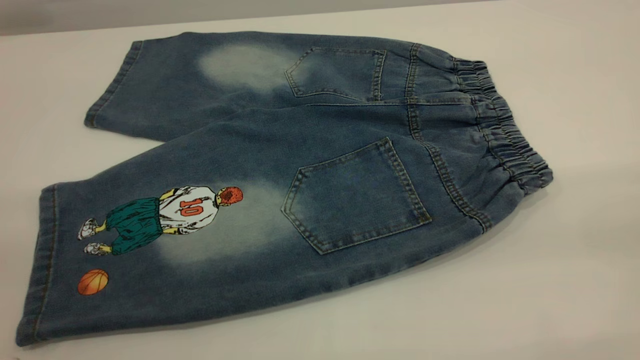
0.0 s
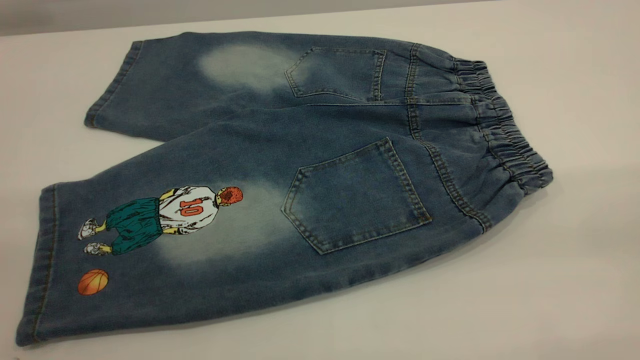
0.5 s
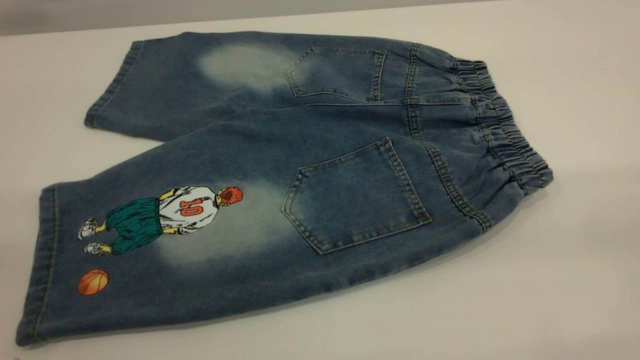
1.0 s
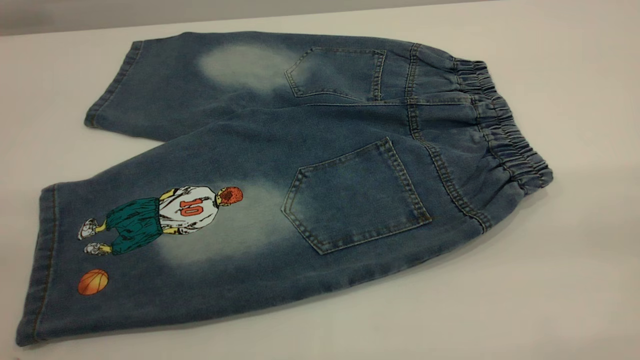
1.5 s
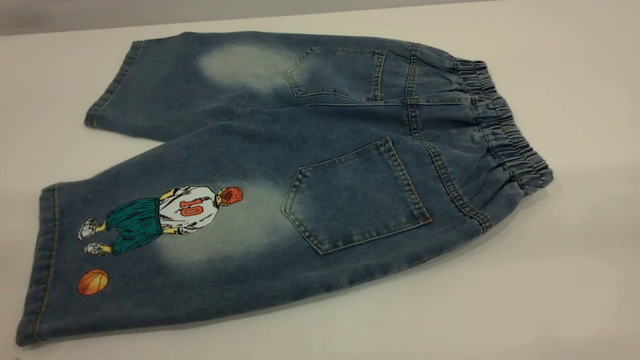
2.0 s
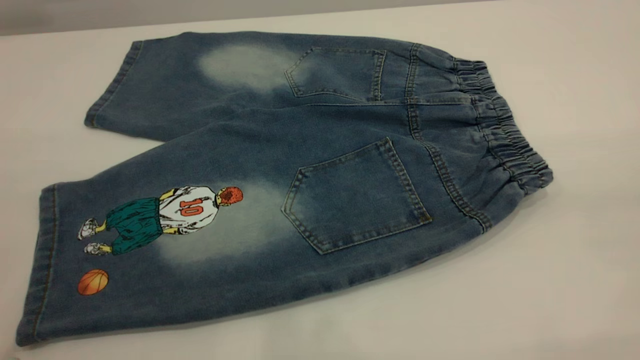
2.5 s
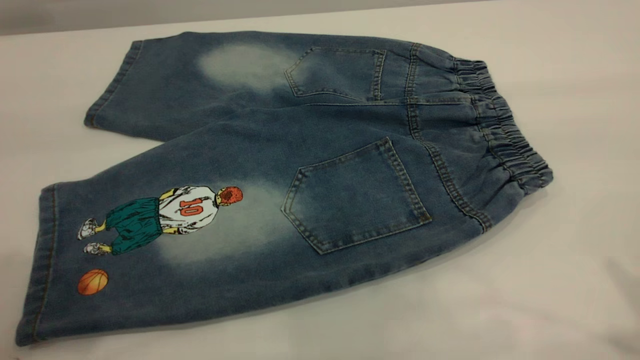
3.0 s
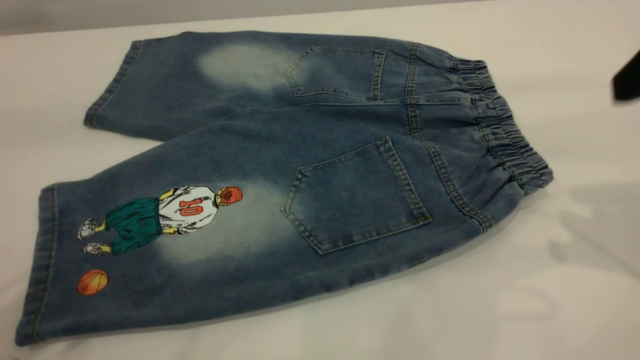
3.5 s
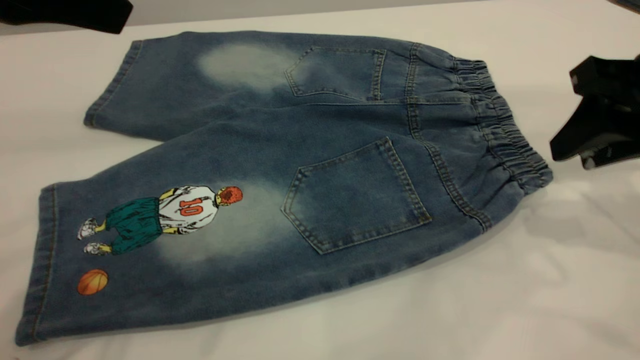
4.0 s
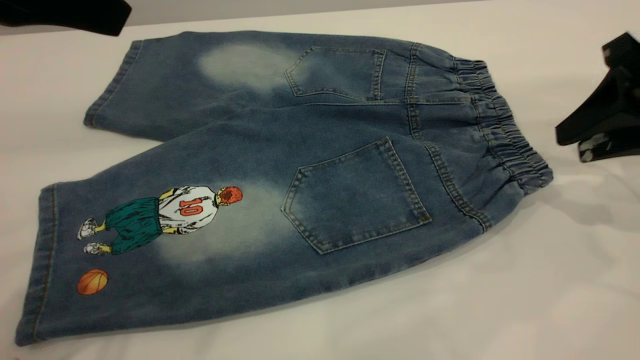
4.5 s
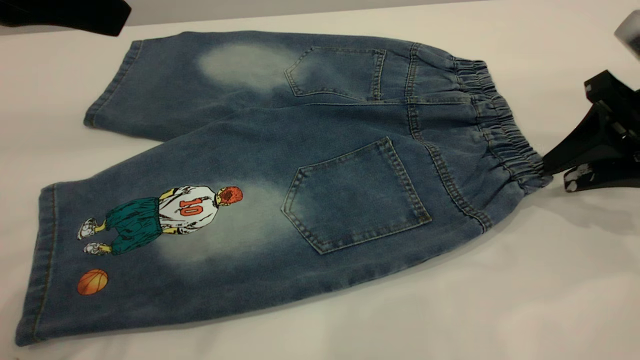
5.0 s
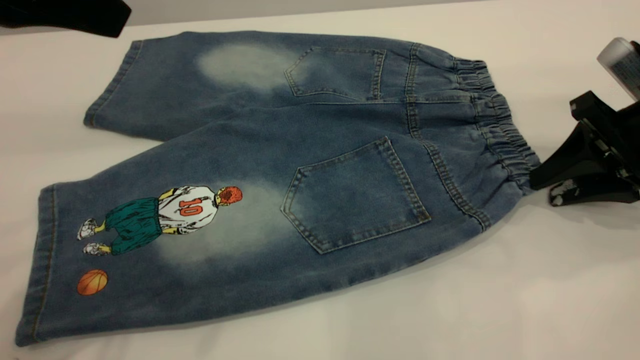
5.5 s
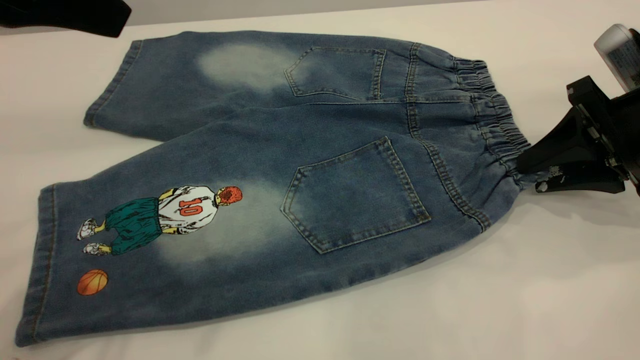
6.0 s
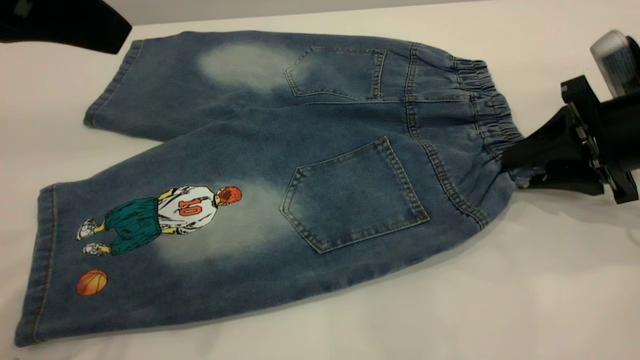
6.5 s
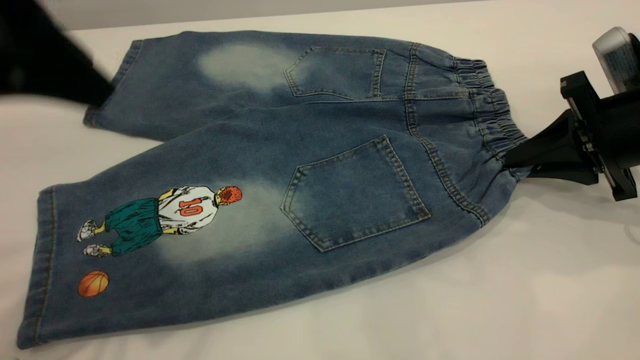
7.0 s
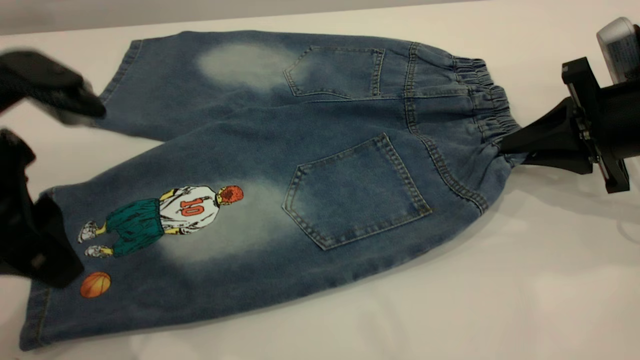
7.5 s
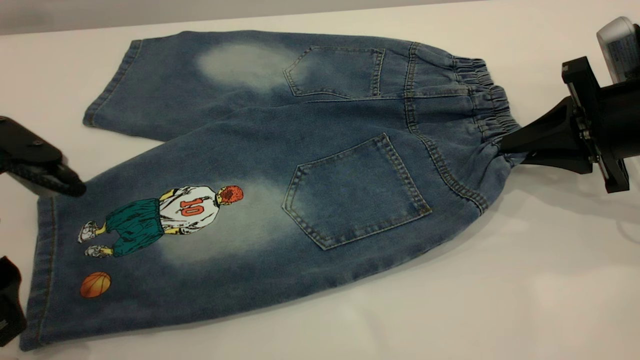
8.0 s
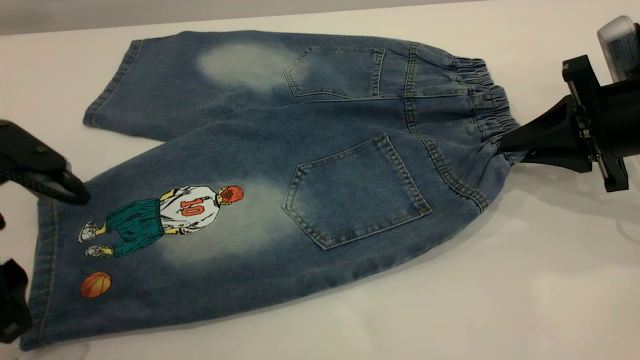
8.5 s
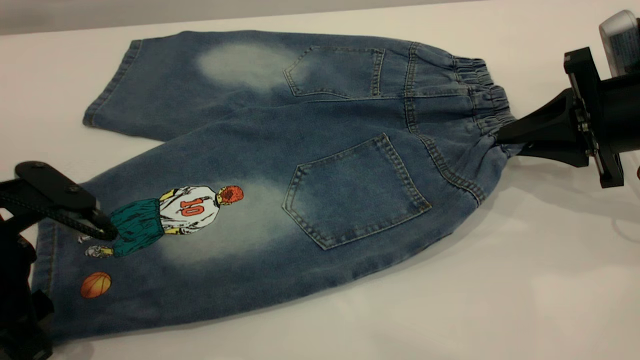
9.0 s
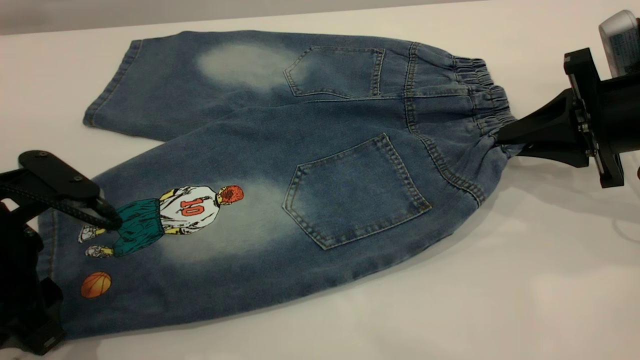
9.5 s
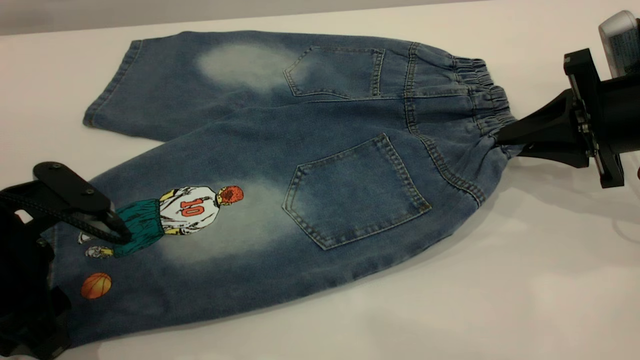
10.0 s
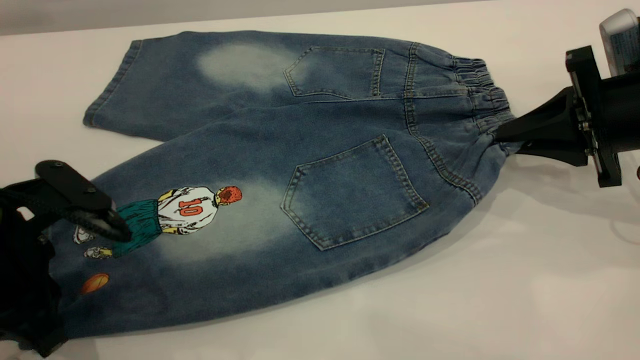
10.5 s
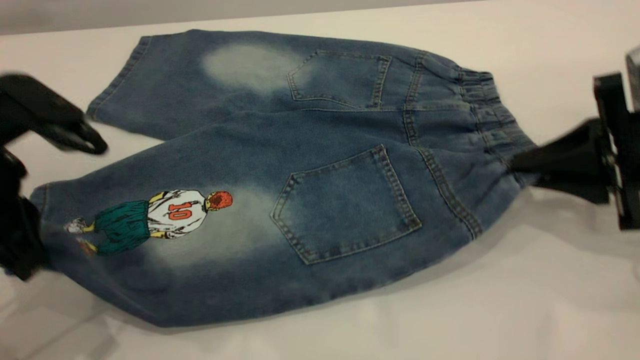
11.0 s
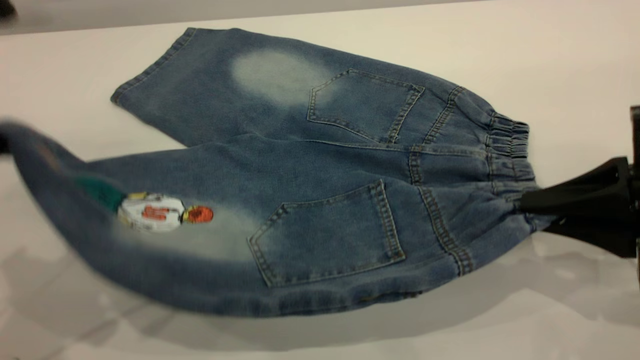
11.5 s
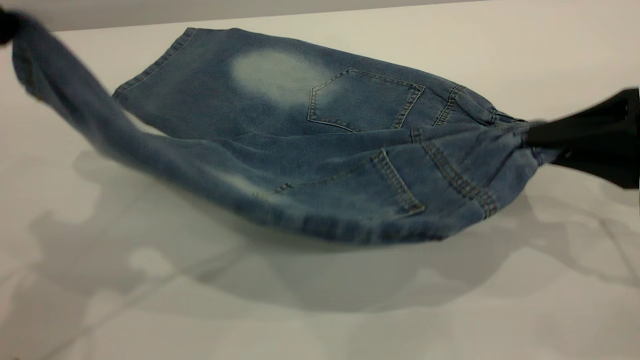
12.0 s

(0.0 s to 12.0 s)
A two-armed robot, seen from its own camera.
2.0 s - 4.0 s: The right gripper goes about 30 cm forward and downward. Meanwhile the left gripper goes about 25 cm forward and to the right.
4.0 s - 6.0 s: The right gripper moves downward, some 10 cm.
6.0 s - 8.0 s: The right gripper closes; the left gripper heads downward, covering roughly 15 cm.
8.0 s - 10.0 s: The left gripper travels downward by approximately 5 cm.
10.0 s - 12.0 s: The right gripper travels backward by about 10 cm. The left gripper is displaced upward by approximately 20 cm, and closes its fingers.

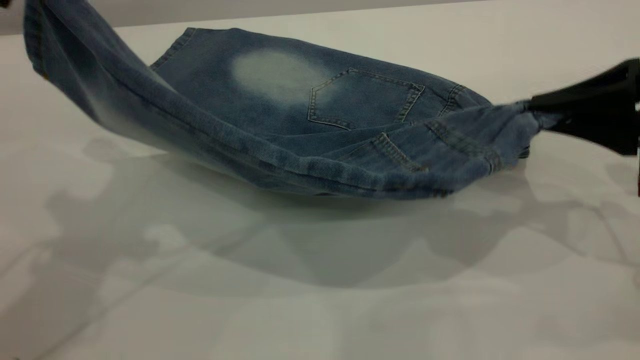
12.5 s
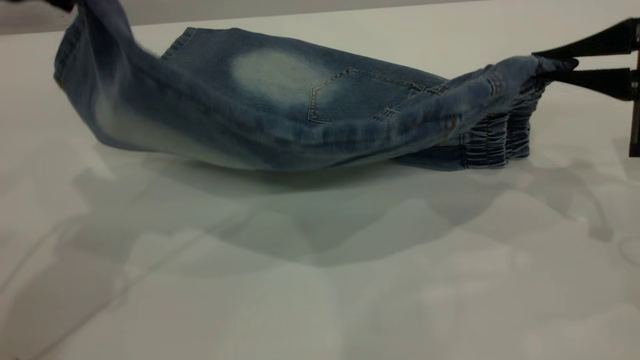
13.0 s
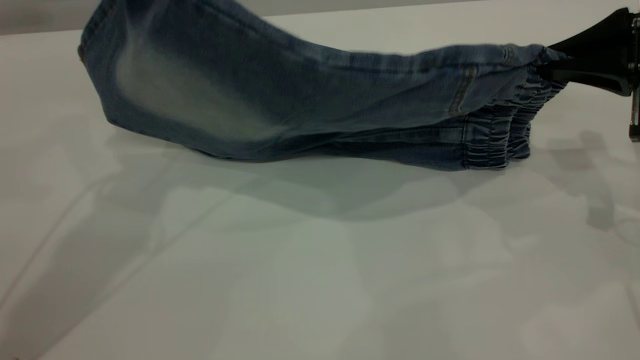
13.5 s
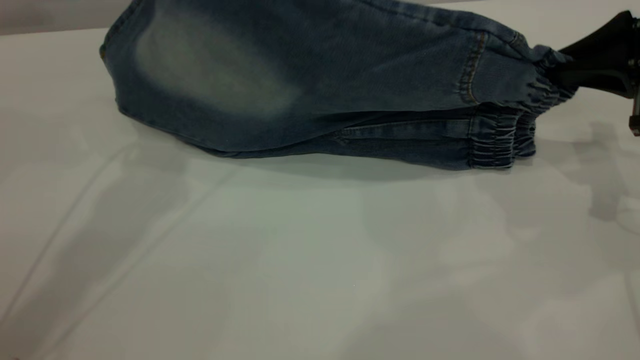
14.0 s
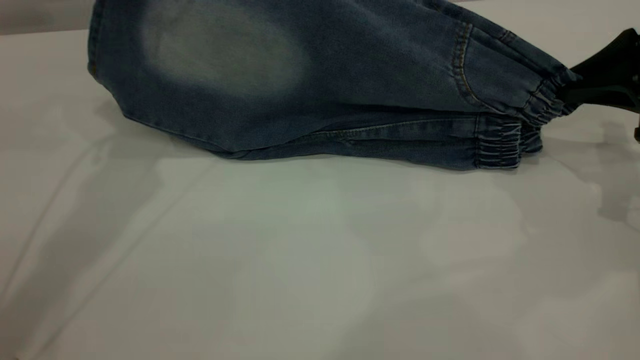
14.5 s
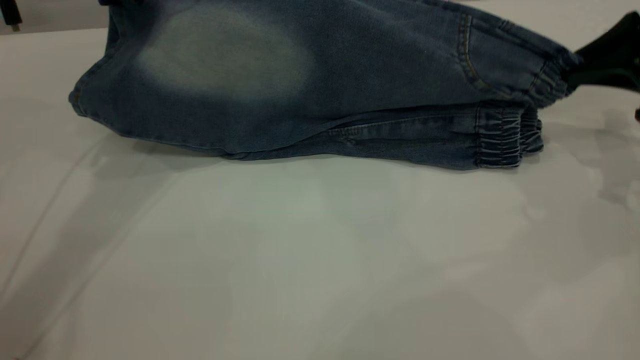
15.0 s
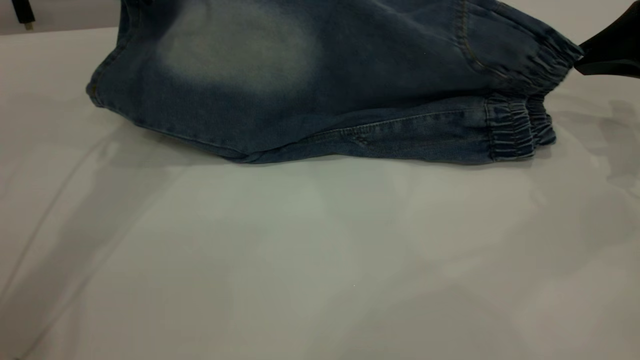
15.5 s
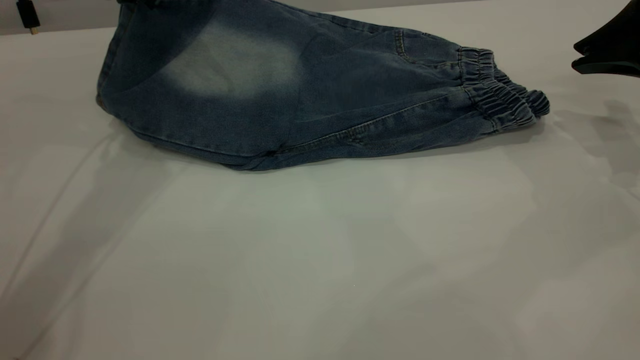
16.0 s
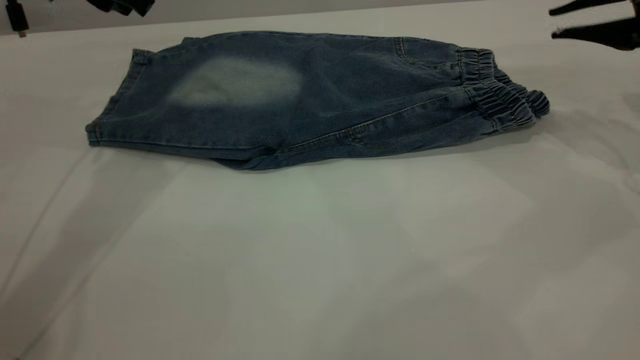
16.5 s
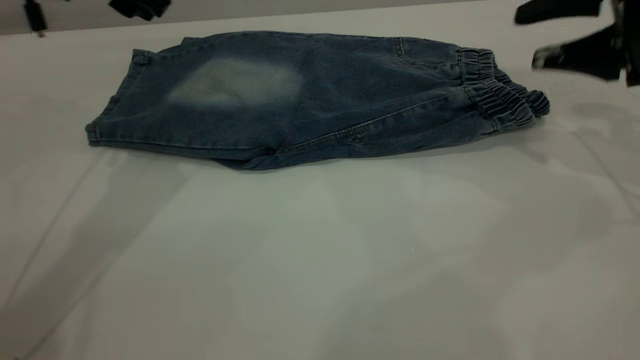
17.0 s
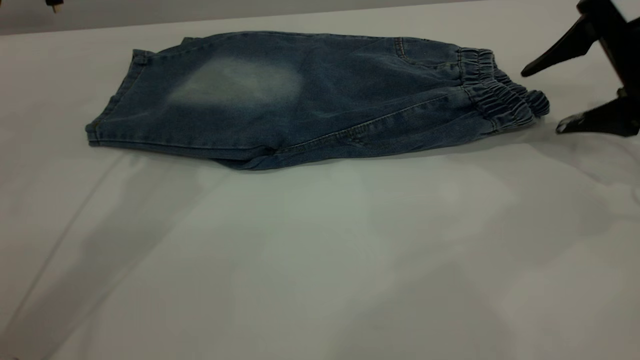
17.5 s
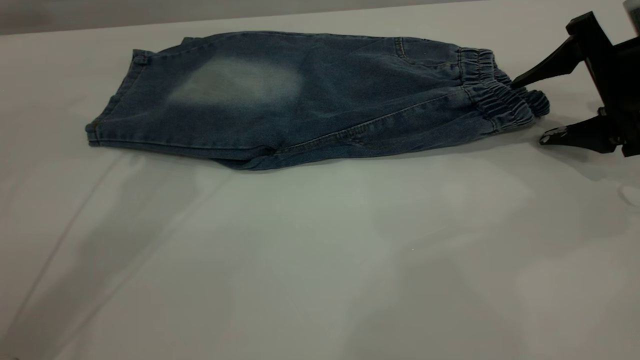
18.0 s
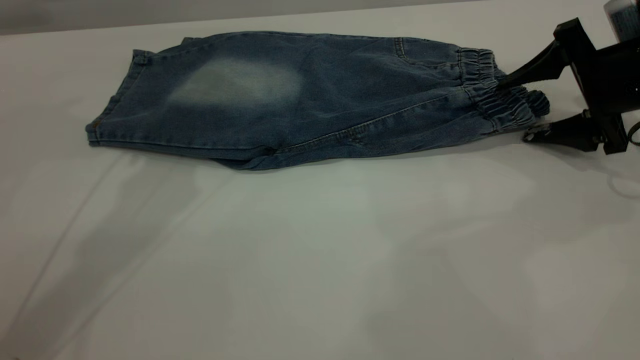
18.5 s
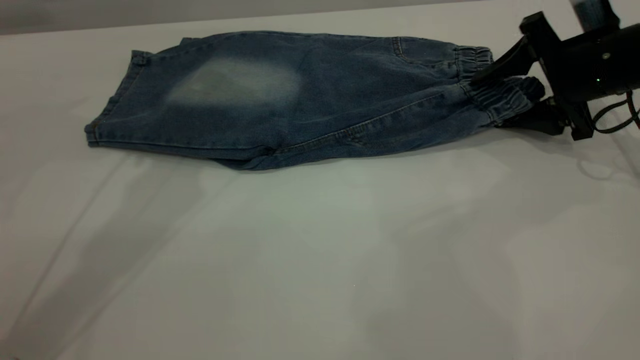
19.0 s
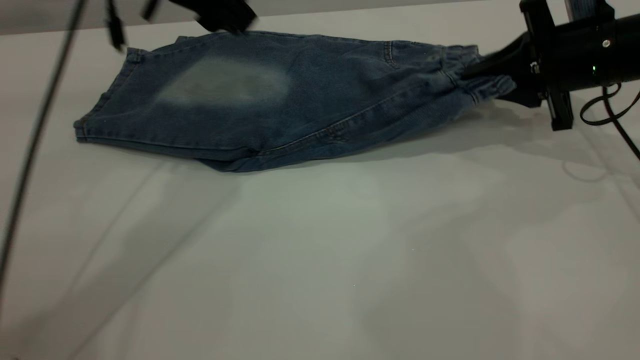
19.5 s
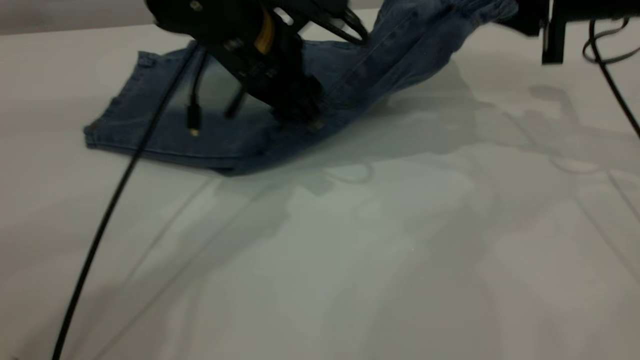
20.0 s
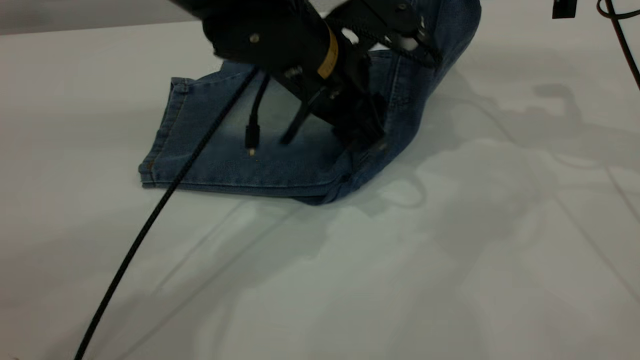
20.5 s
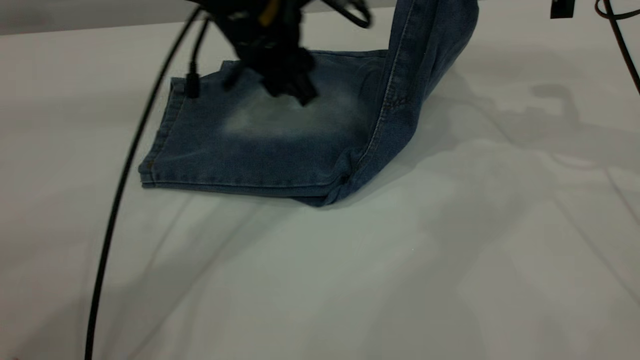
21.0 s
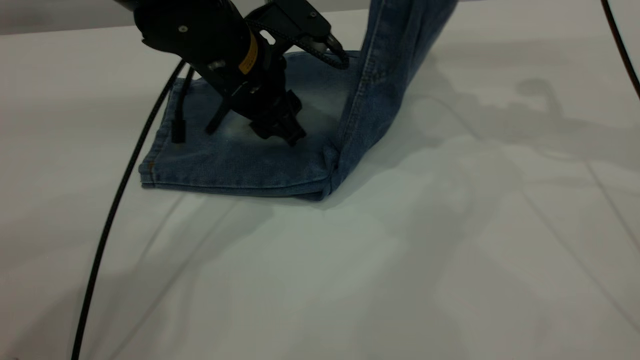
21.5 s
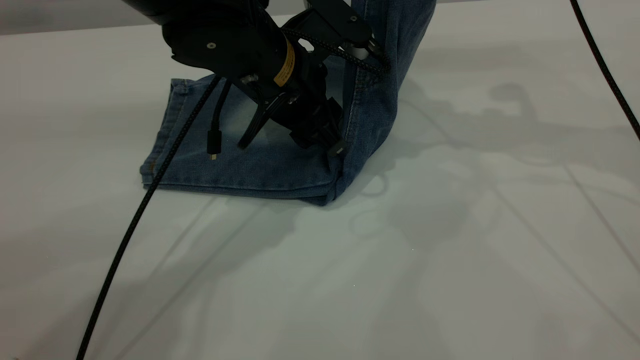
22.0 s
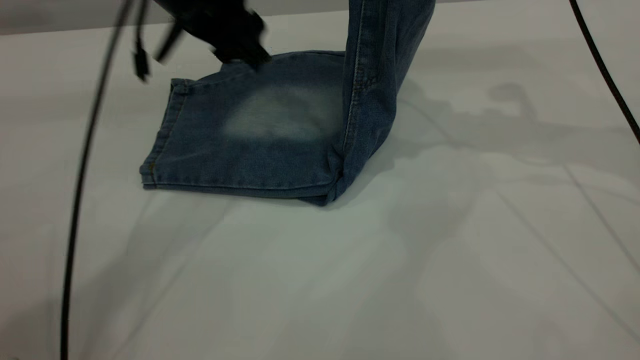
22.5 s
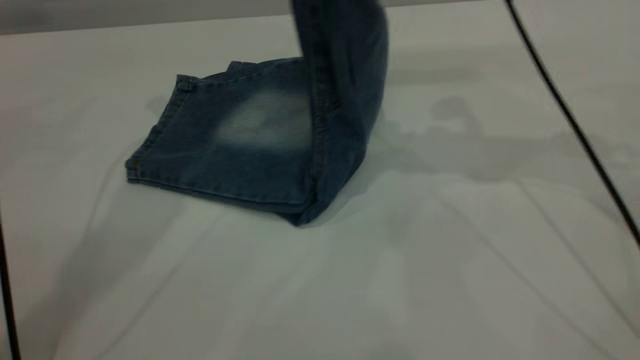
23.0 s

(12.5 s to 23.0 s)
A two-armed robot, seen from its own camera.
Step, 12.5 s - 16.5 s: Fold the bottom of the pants upward.
12.5 s - 14.5 s: The left gripper travels forward by approximately 15 cm. The right gripper moves forward, about 5 cm.
14.5 s - 16.5 s: The left gripper moves downward, roughly 5 cm, and opens its fingers.
16.5 s - 19.0 s: The left gripper moves to the right, some 5 cm. Meanwhile the right gripper shifts about 10 cm downward, and opens up.
19.0 s - 21.0 s: The right gripper travels upward by about 10 cm, and closes up. The left gripper is displaced downward and to the right by roughly 15 cm.
21.0 s - 23.0 s: The left gripper goes some 20 cm upward and to the left, while the right gripper heads to the left, covering roughly 10 cm.
